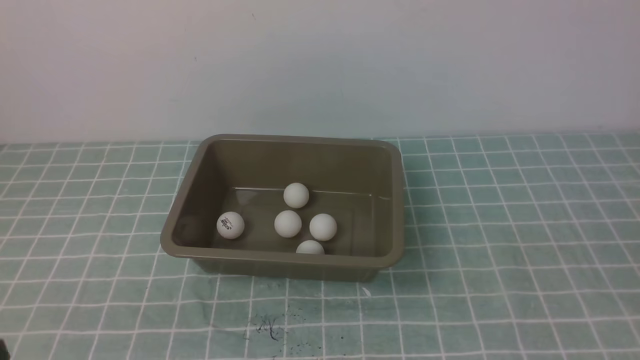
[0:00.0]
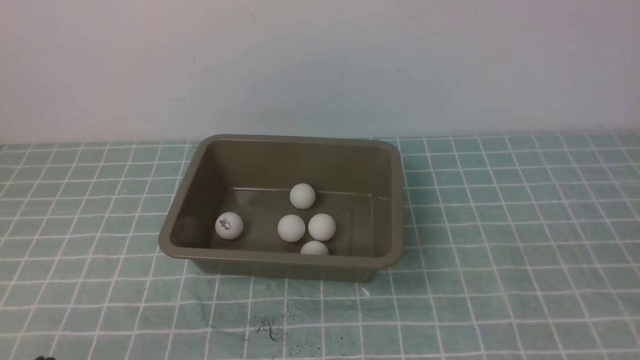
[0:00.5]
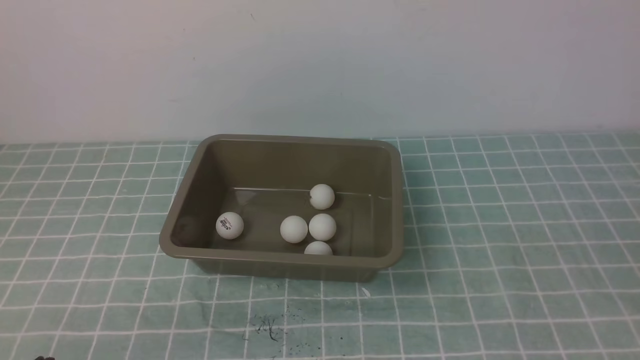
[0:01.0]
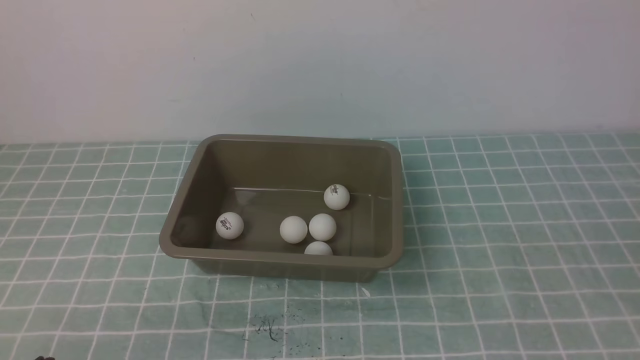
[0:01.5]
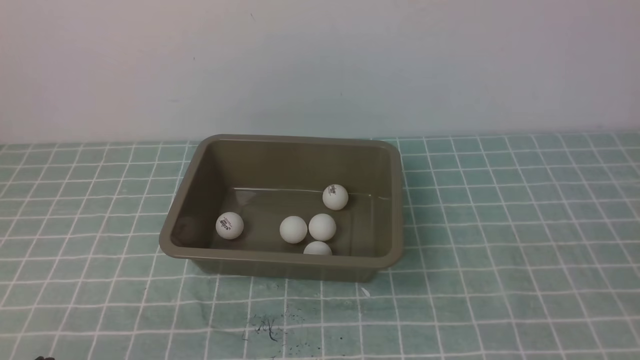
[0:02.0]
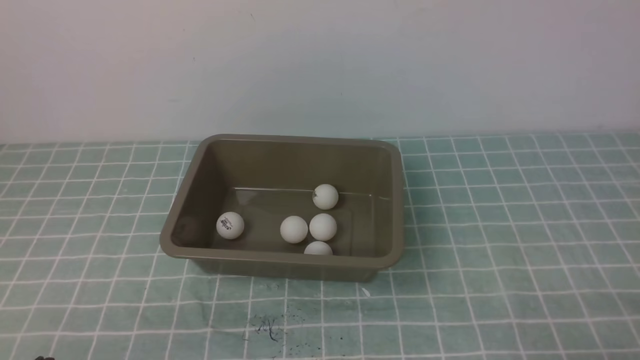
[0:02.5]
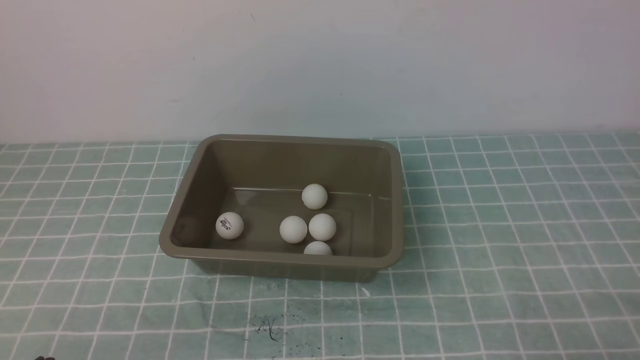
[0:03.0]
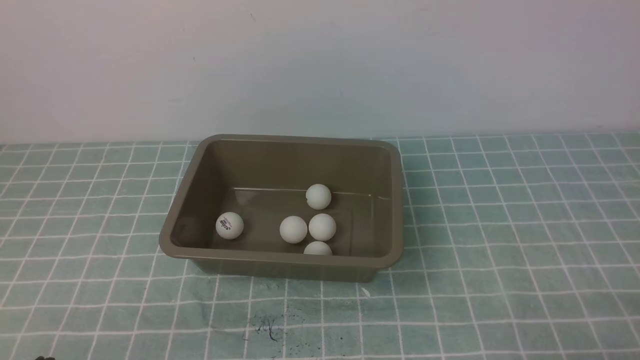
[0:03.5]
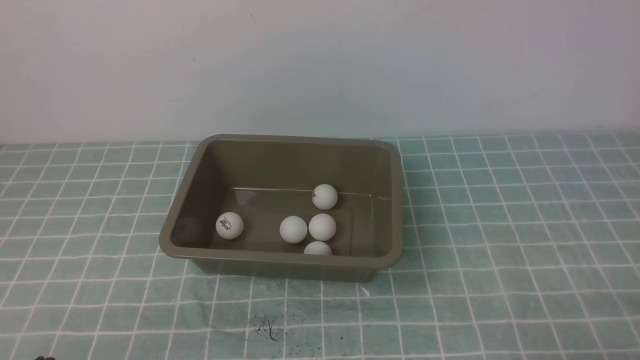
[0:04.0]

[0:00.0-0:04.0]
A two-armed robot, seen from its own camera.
0:00.0 to 0:02.0: The left gripper heads downward, covering about 10 cm. Meanwhile the right gripper ends up roughly 5 cm from where it was.

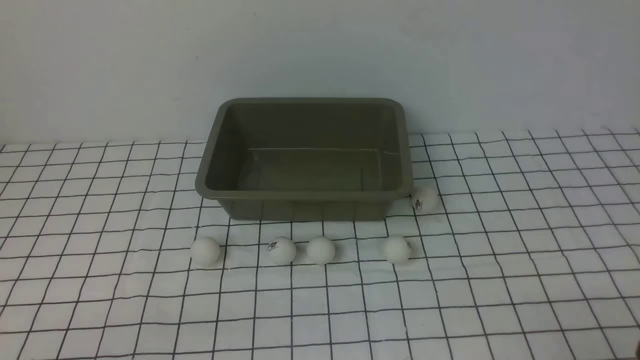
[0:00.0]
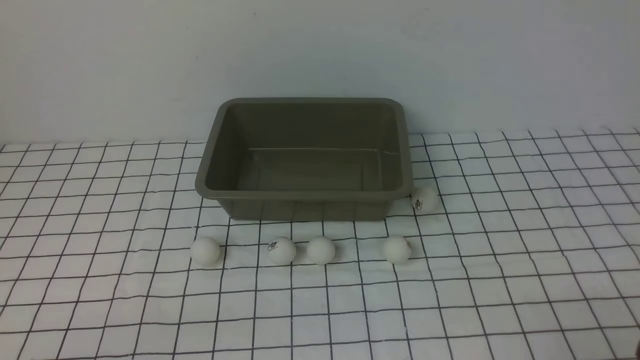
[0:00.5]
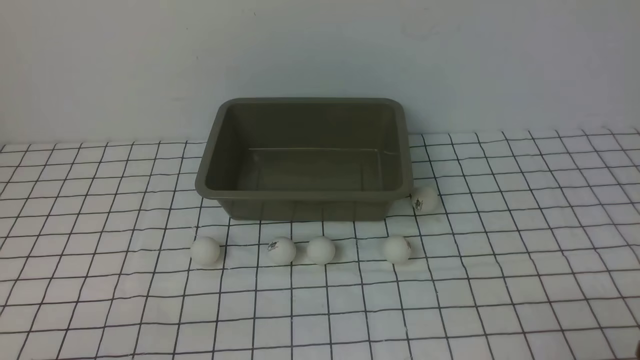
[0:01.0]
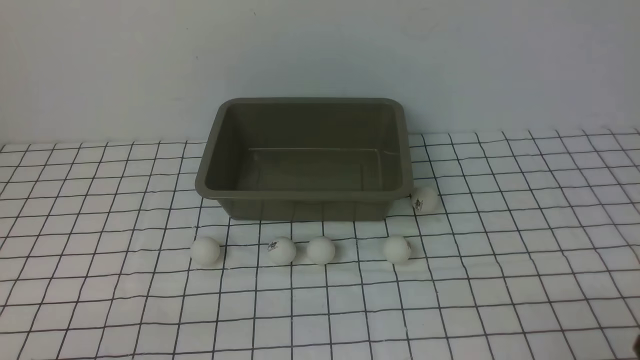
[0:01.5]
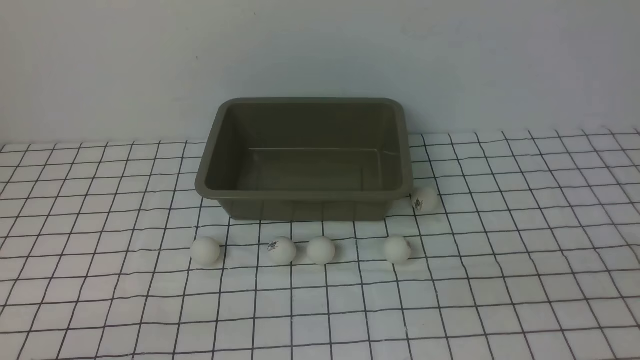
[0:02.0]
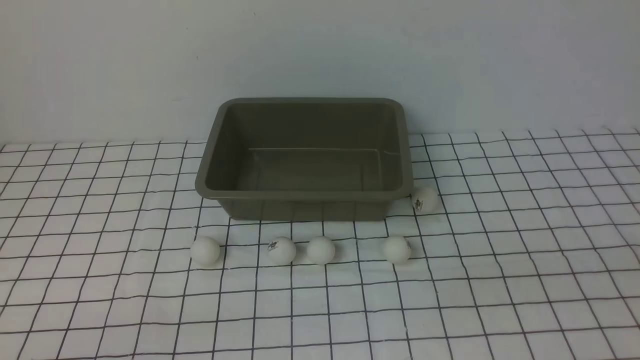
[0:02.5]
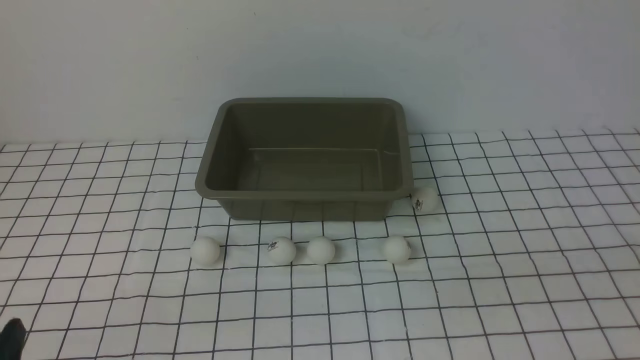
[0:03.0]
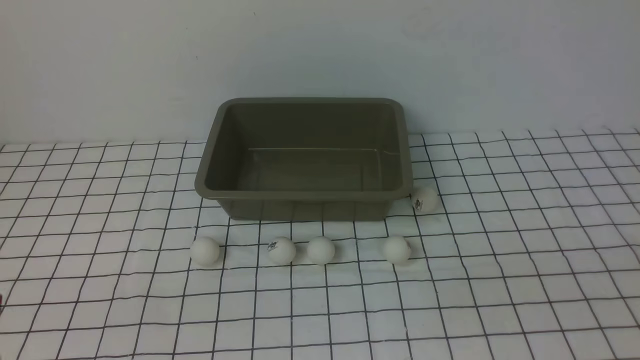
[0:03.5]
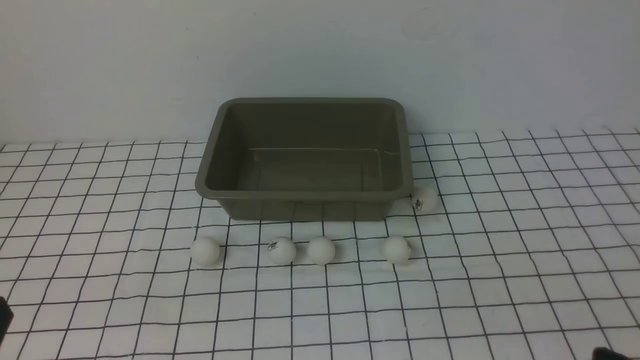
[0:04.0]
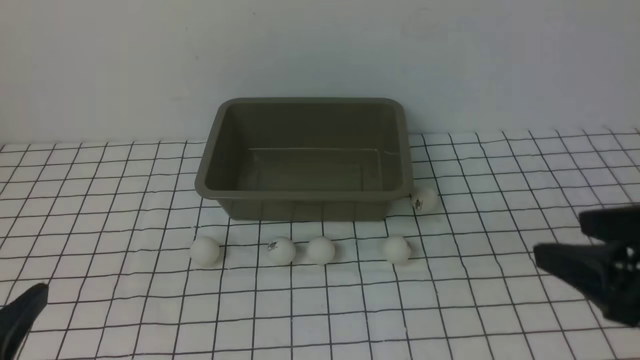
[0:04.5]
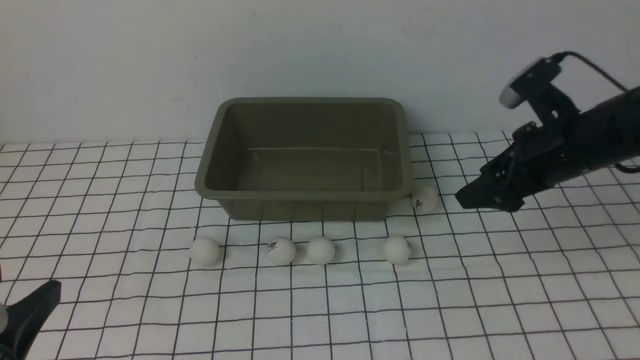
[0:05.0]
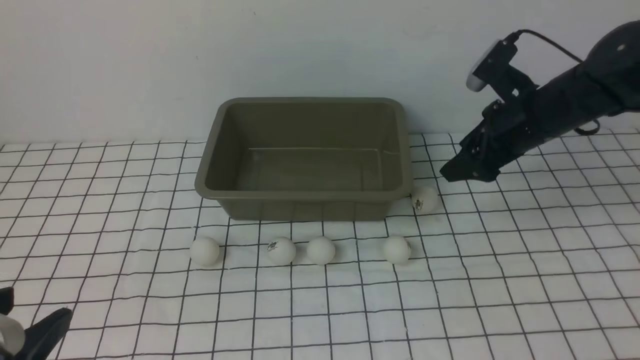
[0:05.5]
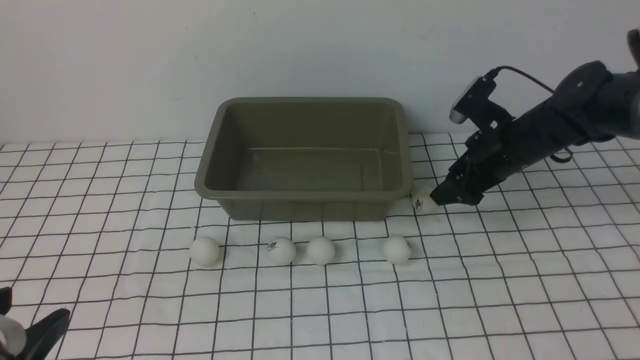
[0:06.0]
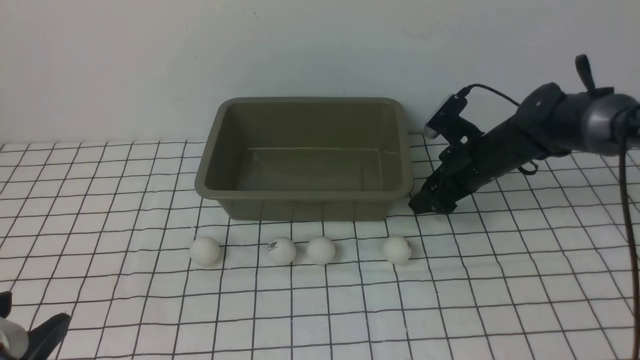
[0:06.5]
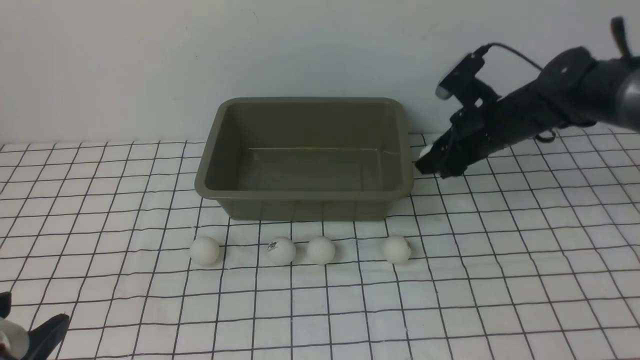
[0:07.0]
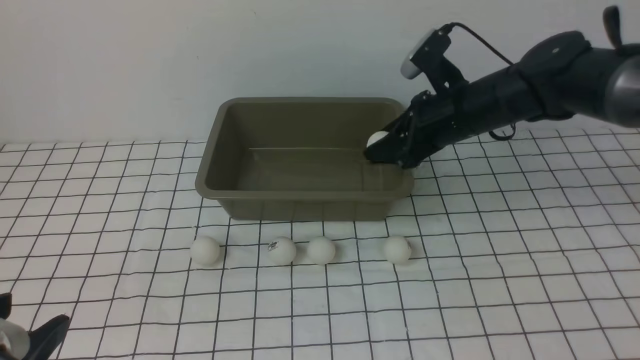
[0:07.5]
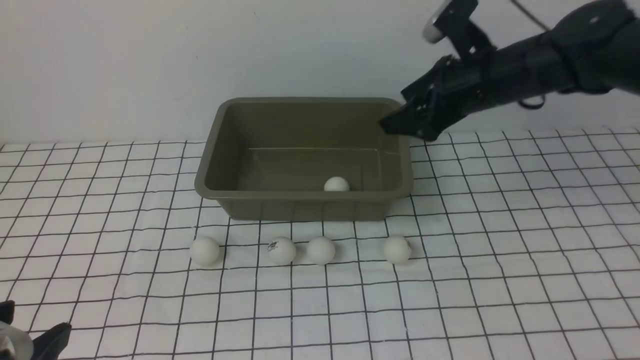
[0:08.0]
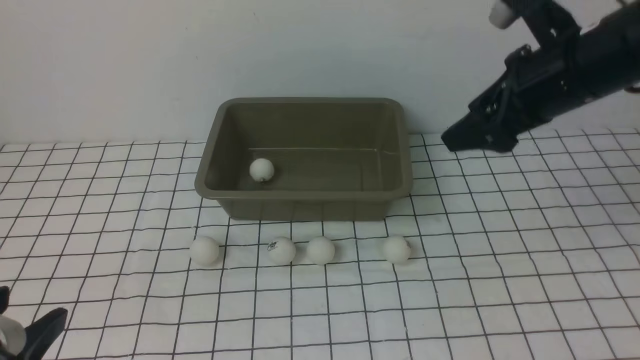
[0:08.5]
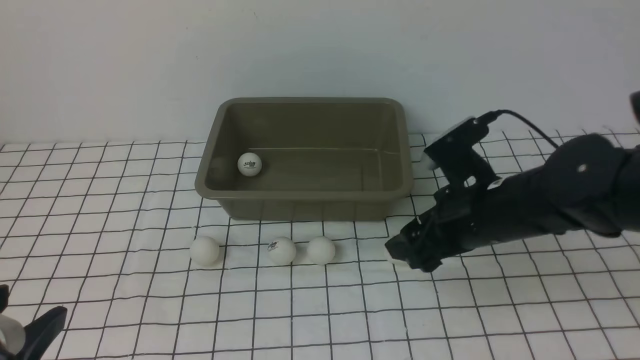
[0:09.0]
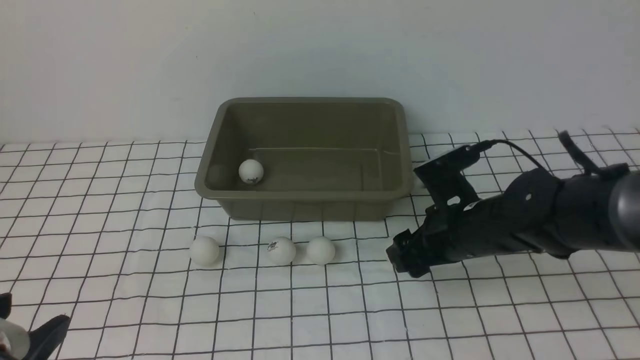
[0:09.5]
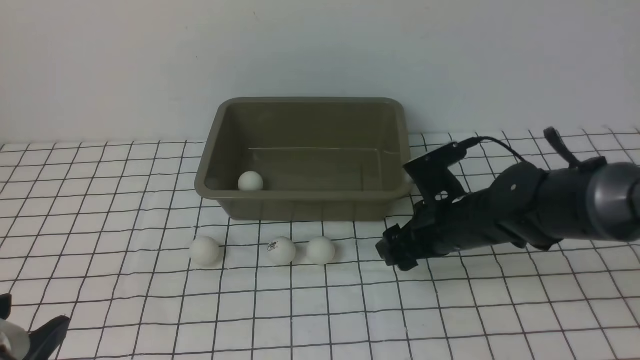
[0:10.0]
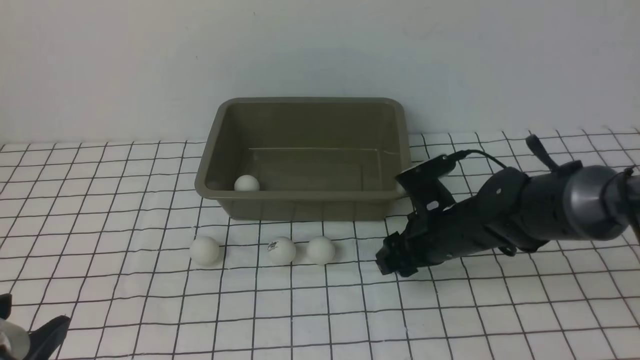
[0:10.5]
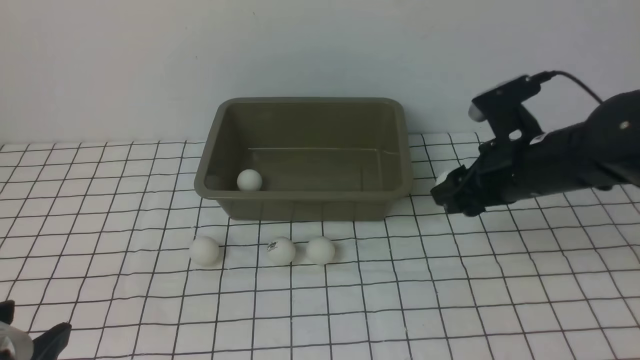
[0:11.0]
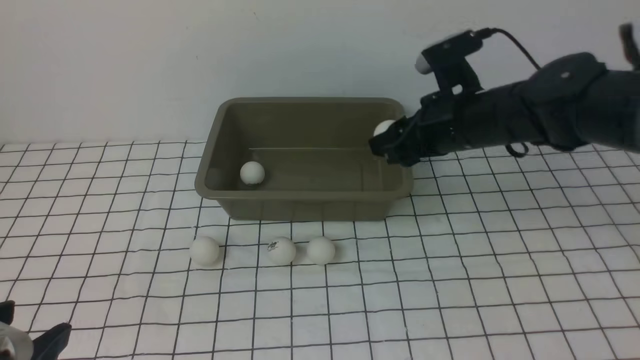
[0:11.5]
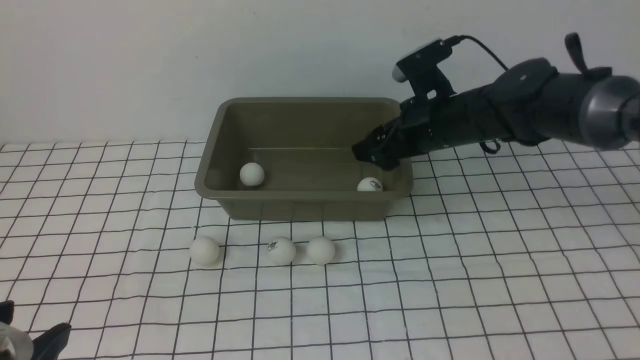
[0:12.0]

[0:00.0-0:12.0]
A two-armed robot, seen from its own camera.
Step, 0:00.0 to 0:07.0: use the right arm to clamp the table tennis ball closest to it.
Step, 0:08.0 to 0:10.5: use the right arm to clamp the table tennis ball closest to it.
Step, 0:11.0 to 0:12.0: use the right arm to put the table tennis ball into the box.
0:04.0 to 0:06.0: The right gripper shifts approximately 40 cm forward.
0:06.0 to 0:08.0: The right gripper travels upward by about 10 cm, and closes, then opens again.
0:08.0 to 0:10.0: The right gripper goes roughly 15 cm downward and backward.
0:10.0 to 0:12.0: The right gripper goes roughly 10 cm upward and forward, and closes, then opens again.

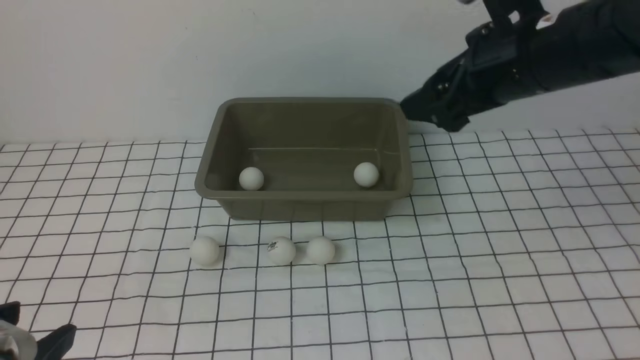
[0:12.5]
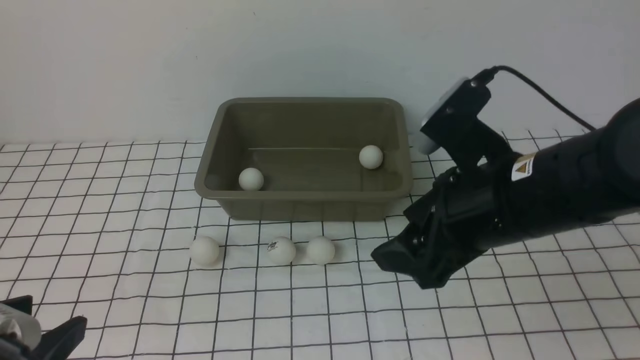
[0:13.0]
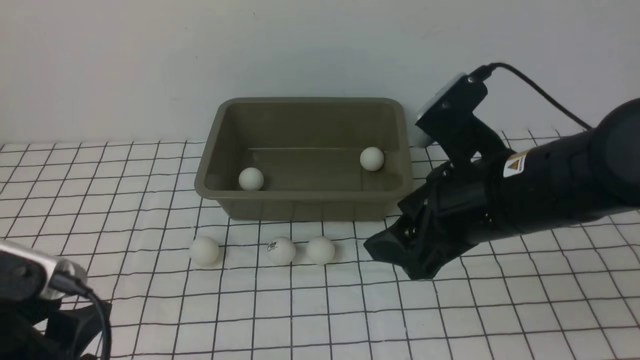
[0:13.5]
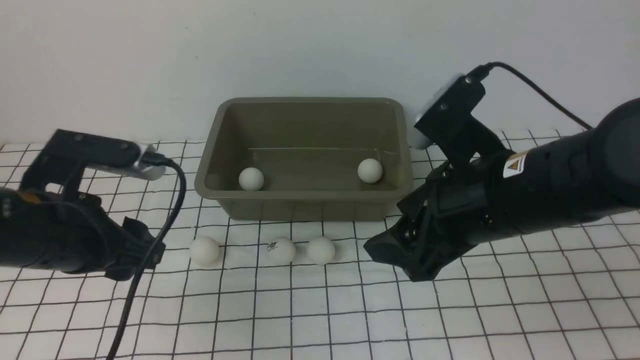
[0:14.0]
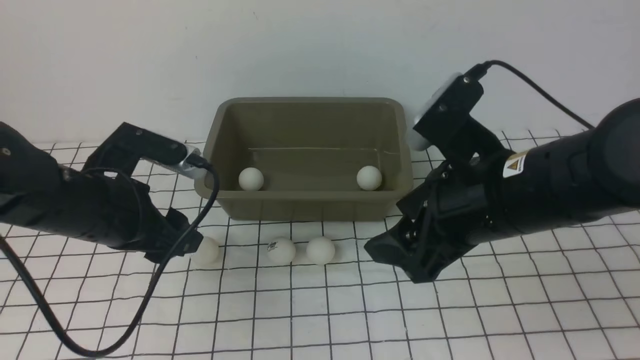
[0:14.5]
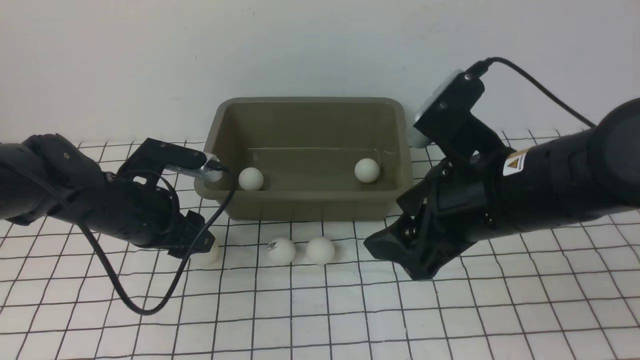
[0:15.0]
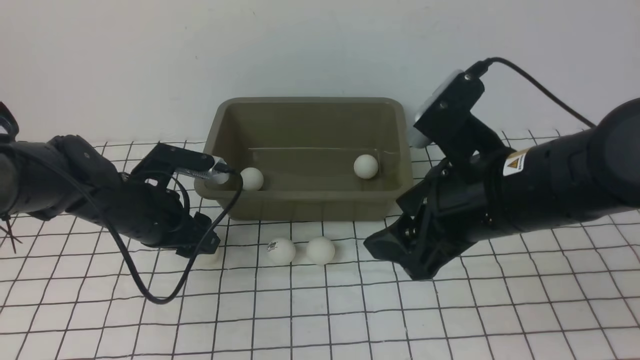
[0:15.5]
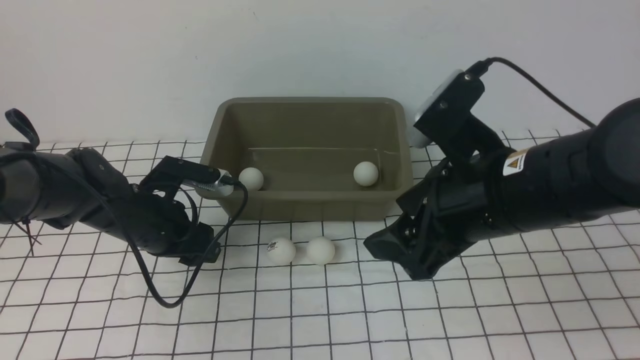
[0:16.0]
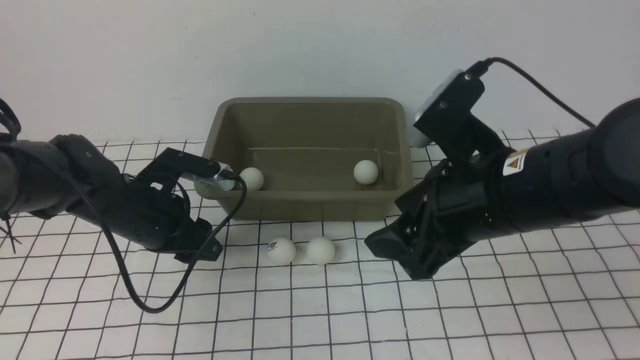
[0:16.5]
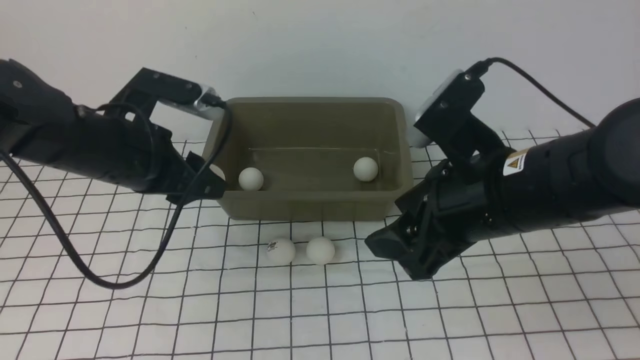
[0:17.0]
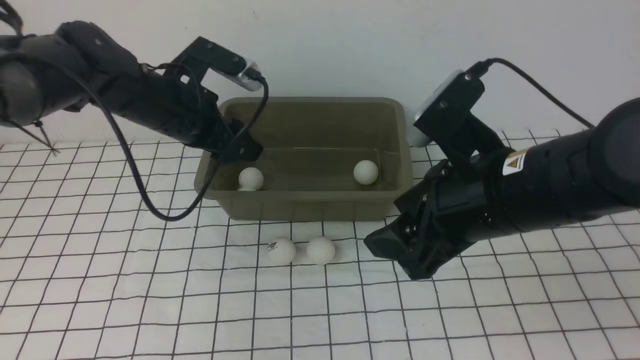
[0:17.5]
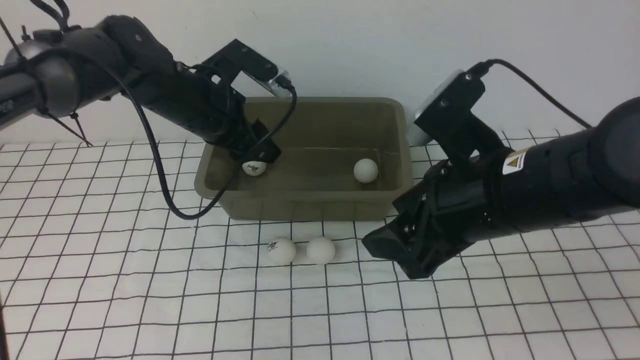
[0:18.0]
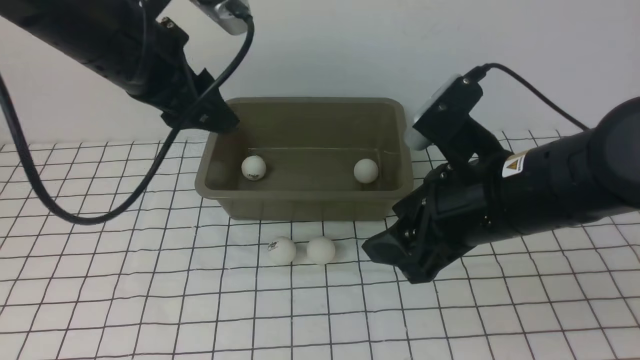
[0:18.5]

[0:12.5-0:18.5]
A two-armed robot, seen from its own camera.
Step, 0:12.5 to 0:16.5: use the left arm to clamp the table tennis ball closest to it.
Step, 0:17.0 to 0:17.5: use the left arm to put the table tennis ball into the box.
0:12.5 to 0:14.5: The right gripper is displaced backward by approximately 10 cm, while the left gripper goes approximately 20 cm forward.
0:14.5 to 0:16.5: The left gripper closes up.
0:16.5 to 0:18.5: The left gripper travels upward by approximately 15 cm.
